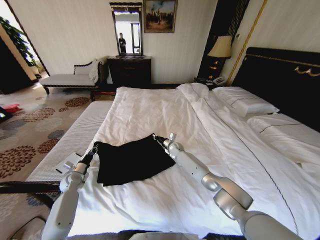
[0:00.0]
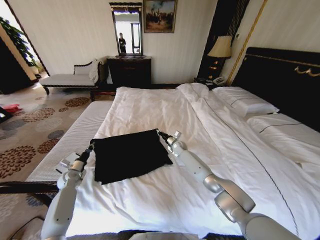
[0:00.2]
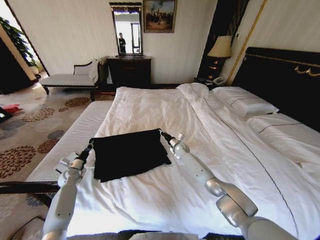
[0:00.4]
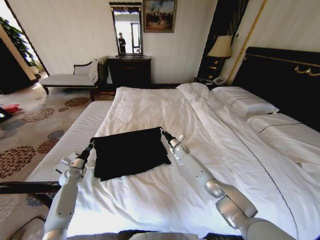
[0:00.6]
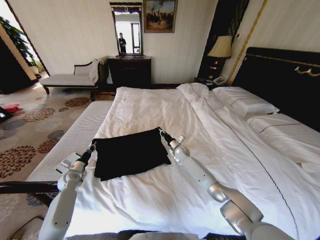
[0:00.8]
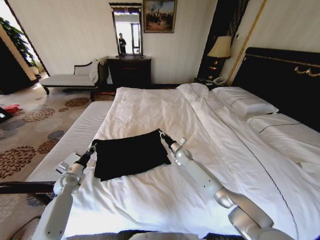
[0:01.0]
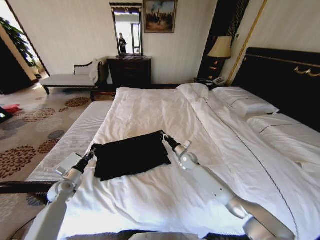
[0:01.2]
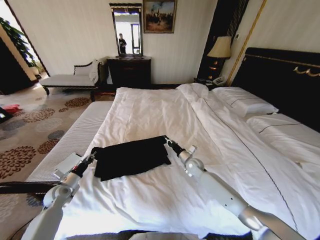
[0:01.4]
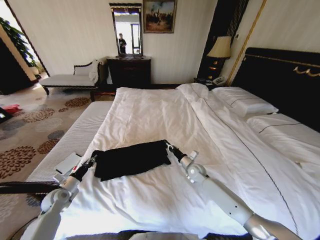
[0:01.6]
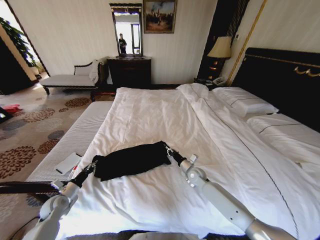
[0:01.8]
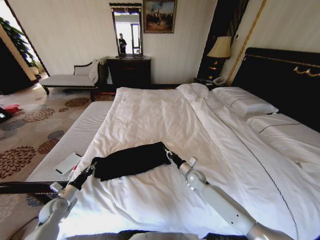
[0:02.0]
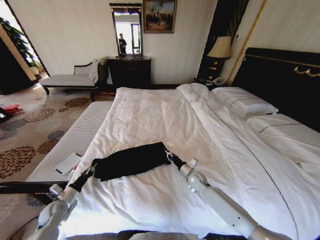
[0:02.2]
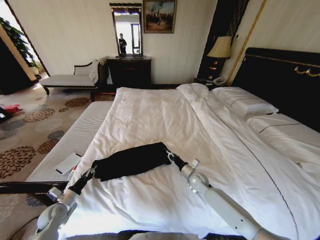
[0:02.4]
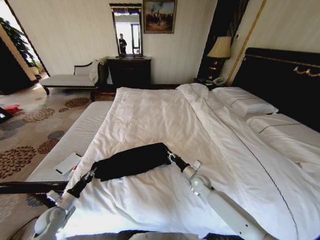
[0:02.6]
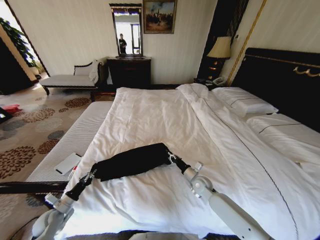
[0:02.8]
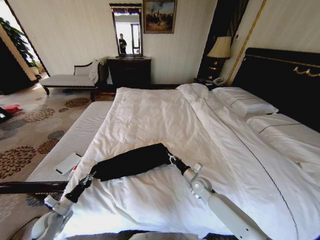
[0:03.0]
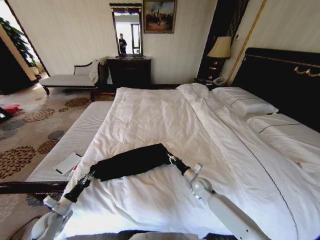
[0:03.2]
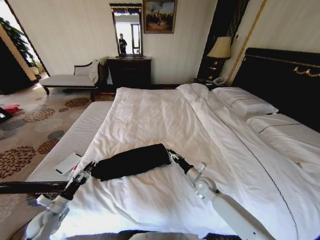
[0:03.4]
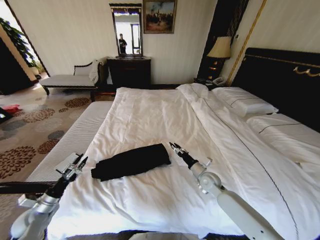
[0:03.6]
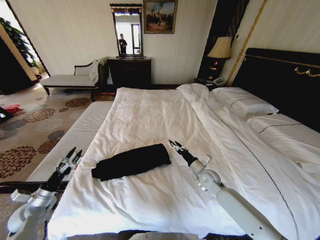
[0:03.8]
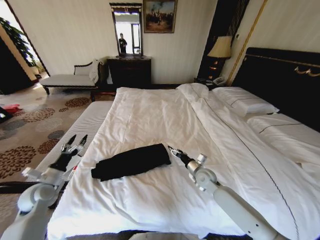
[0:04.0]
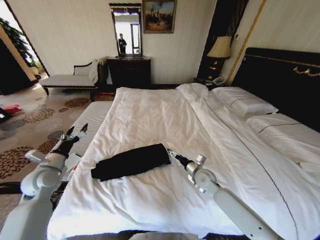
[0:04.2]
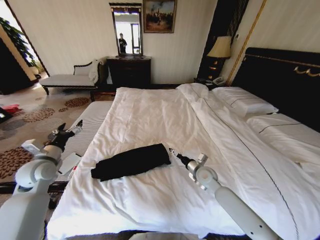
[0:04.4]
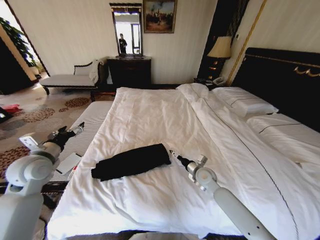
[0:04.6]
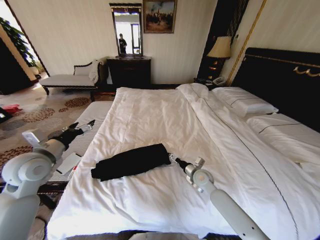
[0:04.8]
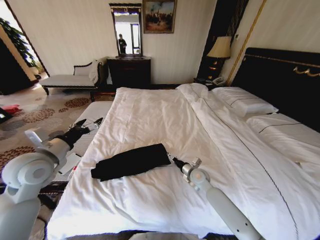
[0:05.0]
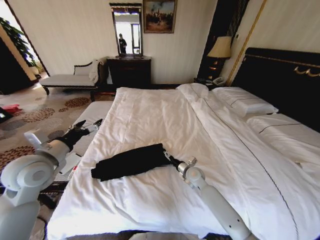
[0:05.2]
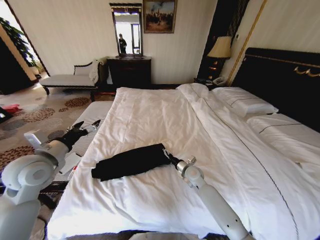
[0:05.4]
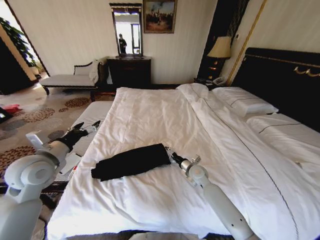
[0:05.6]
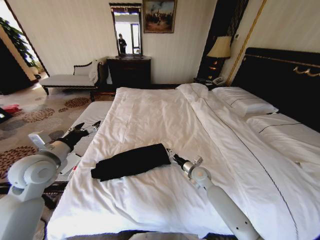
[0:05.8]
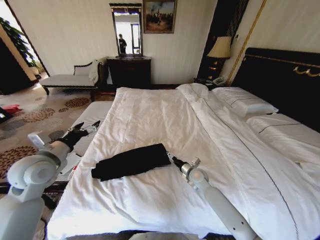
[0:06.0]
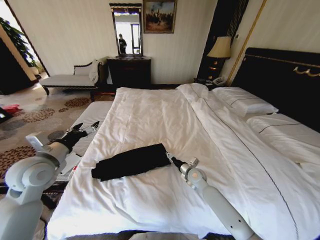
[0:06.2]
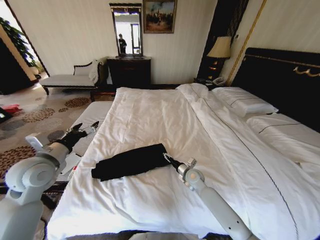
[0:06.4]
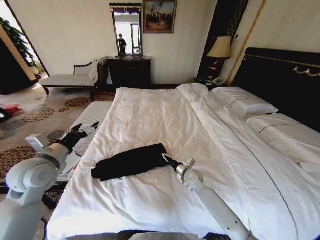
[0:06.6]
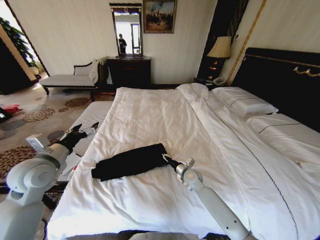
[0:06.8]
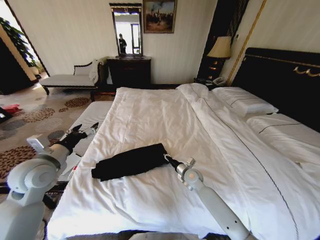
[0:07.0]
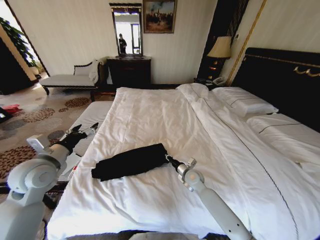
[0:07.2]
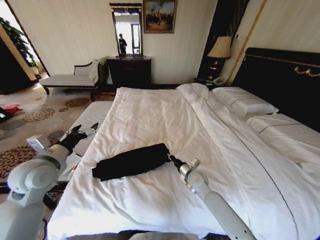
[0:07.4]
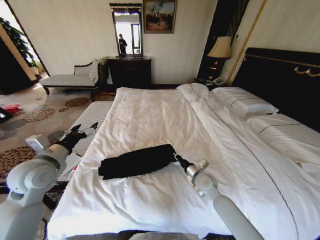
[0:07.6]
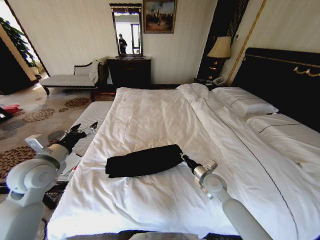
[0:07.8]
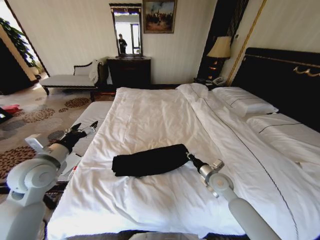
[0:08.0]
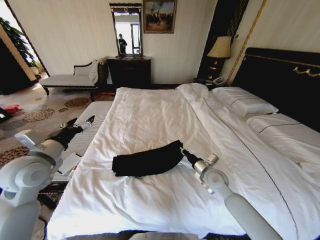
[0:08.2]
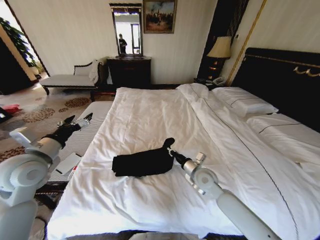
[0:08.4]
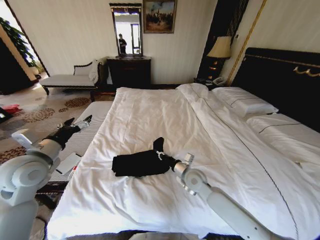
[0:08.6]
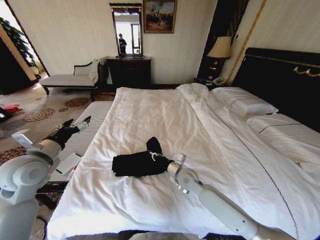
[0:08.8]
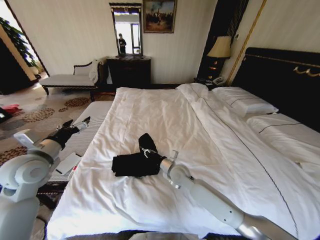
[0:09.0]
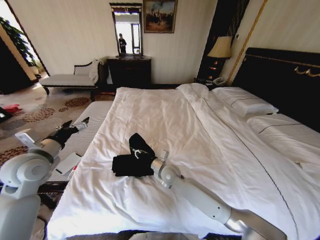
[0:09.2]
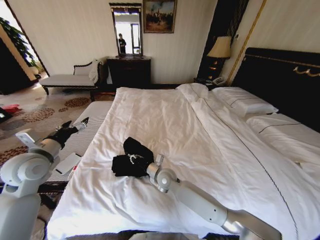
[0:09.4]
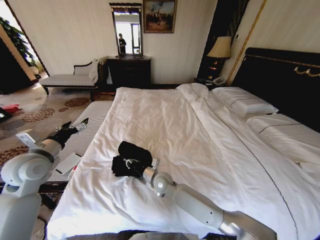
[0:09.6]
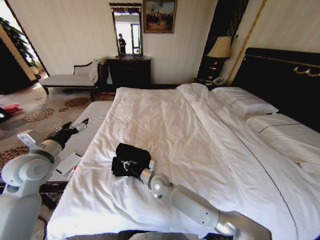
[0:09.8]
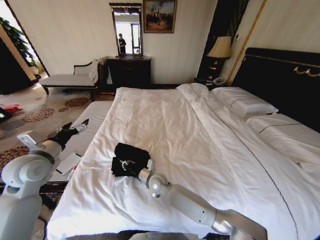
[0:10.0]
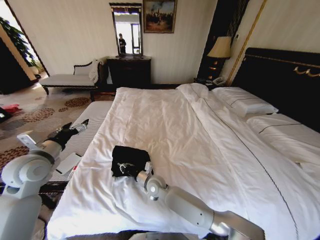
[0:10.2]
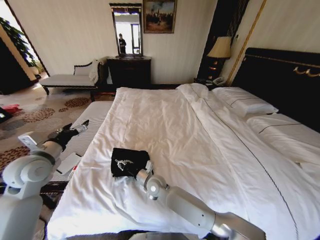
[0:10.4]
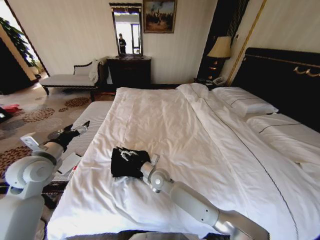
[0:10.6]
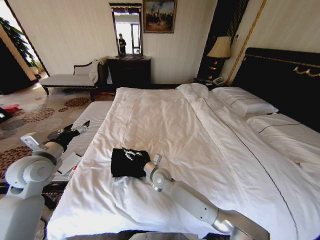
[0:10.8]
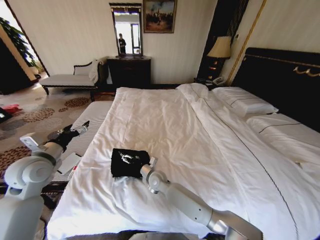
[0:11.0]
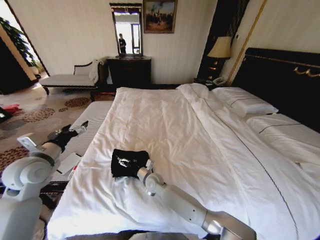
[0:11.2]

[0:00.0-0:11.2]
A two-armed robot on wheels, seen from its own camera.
Task of the whole recording: Fold the clothes on the bed.
0:00.0 to 0:01.6: The left gripper shifts about 10 cm backward; the right gripper travels backward and to the right by roughly 20 cm.
0:01.6 to 0:03.2: Both grippers travel together backward, about 5 cm.
0:03.2 to 0:04.8: The left gripper moves upward, roughly 30 cm, and opens; the right gripper is displaced upward by some 5 cm, and opens up.
0:04.8 to 0:06.4: There are only small adjustments of the grippers.
0:06.4 to 0:08.0: The right gripper moves to the right, upward and backward, about 10 cm, and closes its fingers.
0:08.0 to 0:09.6: The right gripper shifts roughly 25 cm to the left.
0:09.6 to 0:11.2: The right gripper changes place by some 5 cm, and opens up.

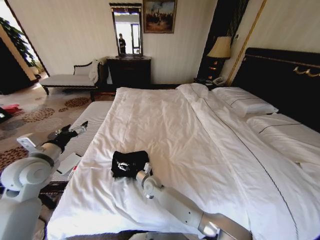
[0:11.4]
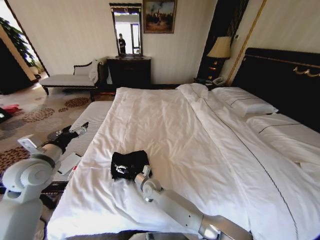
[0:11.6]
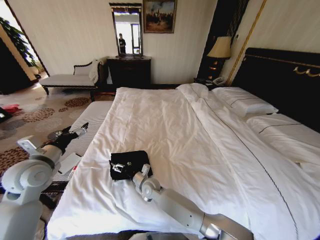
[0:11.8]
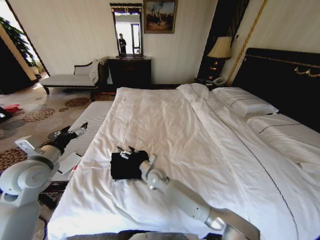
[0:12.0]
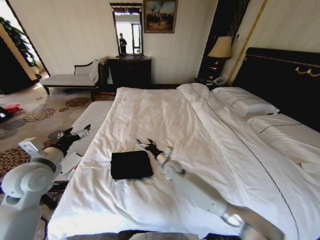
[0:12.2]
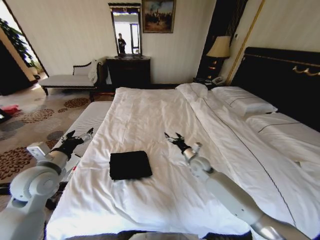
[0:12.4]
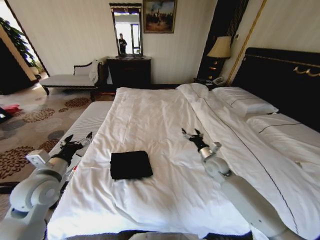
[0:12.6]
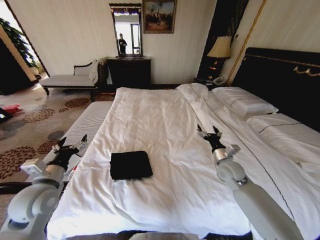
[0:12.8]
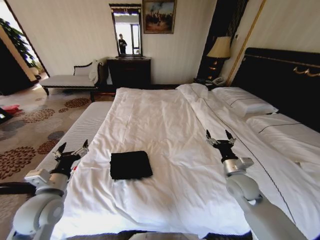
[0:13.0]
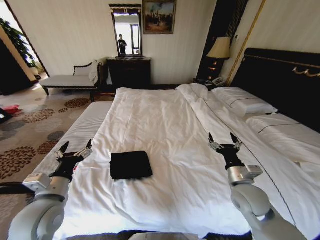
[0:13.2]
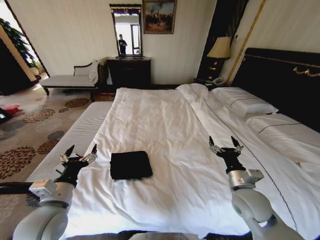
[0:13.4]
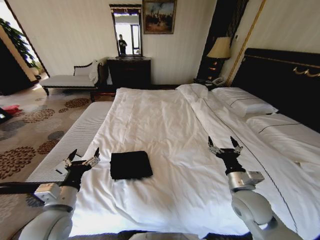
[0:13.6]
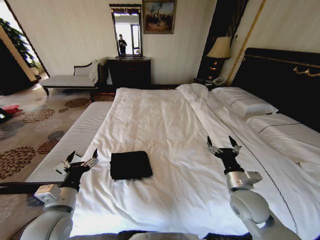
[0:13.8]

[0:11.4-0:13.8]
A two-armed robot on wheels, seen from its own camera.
Task of the whole recording: Fold the clothes on the bed.
0:11.4 to 0:12.6: The left gripper moves approximately 5 cm, while the right gripper travels to the right by roughly 30 cm.
0:12.6 to 0:13.8: The right gripper is displaced backward by about 15 cm. The left gripper travels backward, to the right and downward by about 10 cm.
